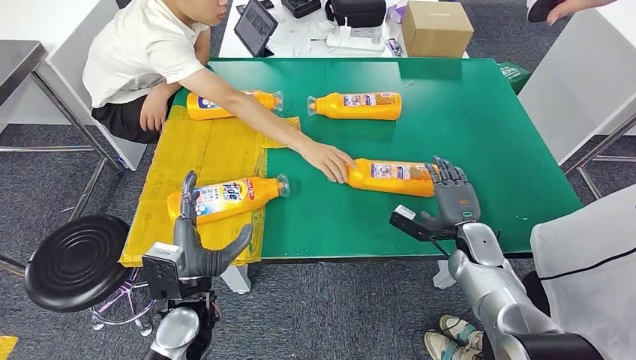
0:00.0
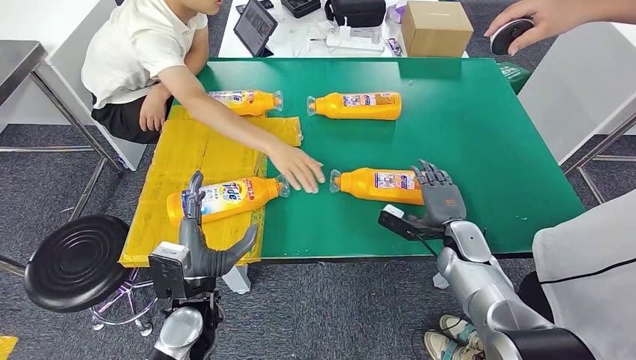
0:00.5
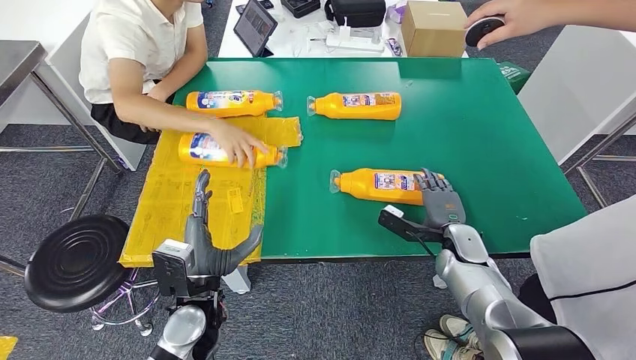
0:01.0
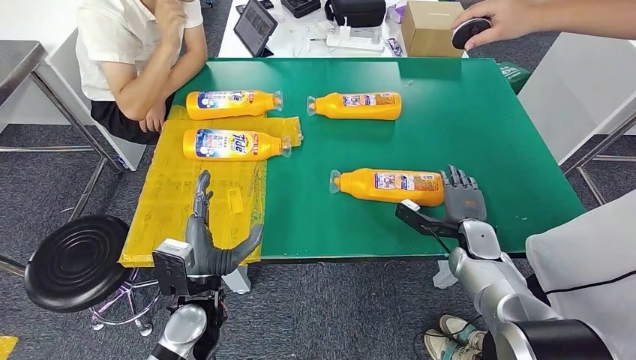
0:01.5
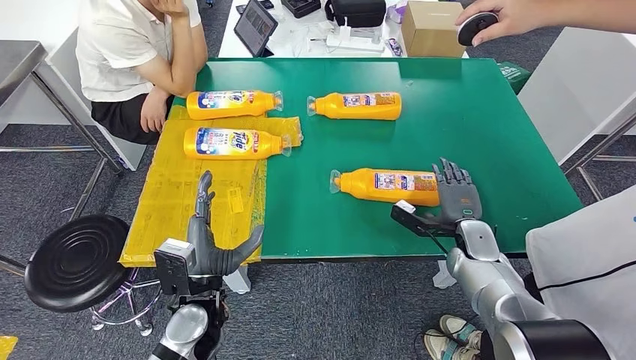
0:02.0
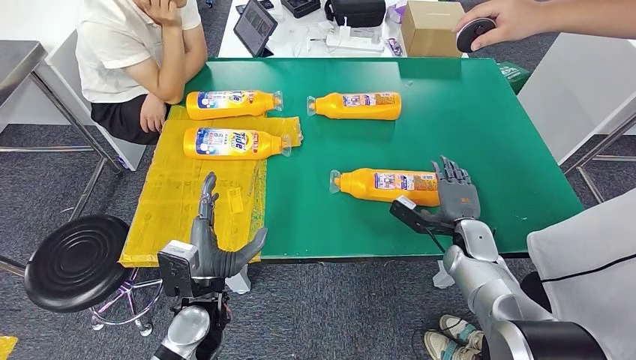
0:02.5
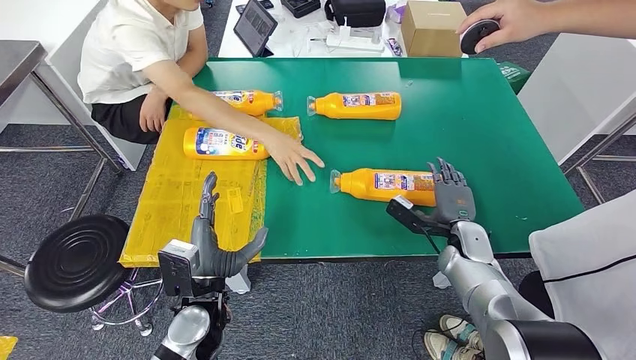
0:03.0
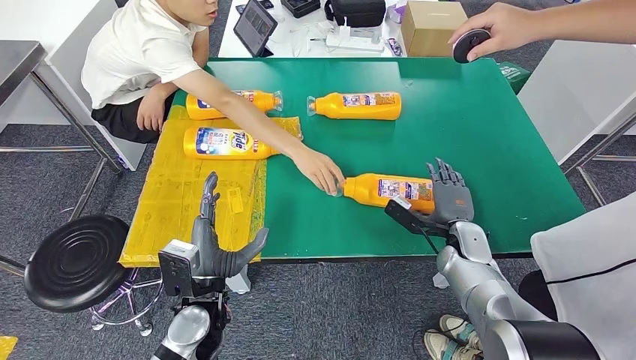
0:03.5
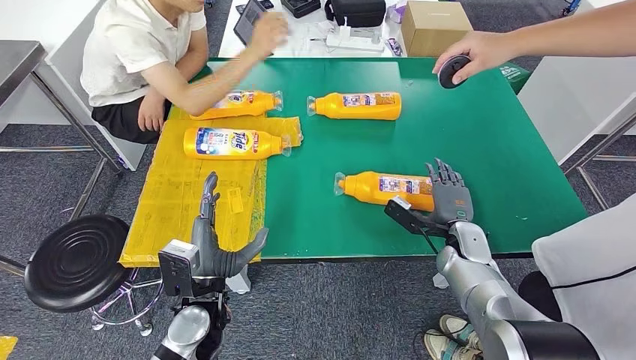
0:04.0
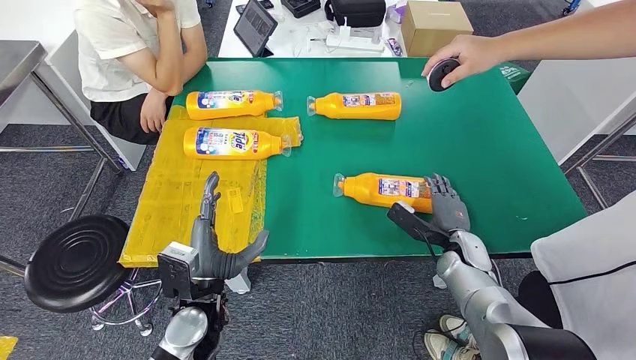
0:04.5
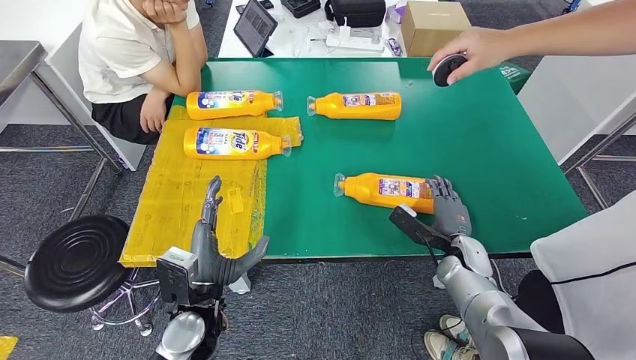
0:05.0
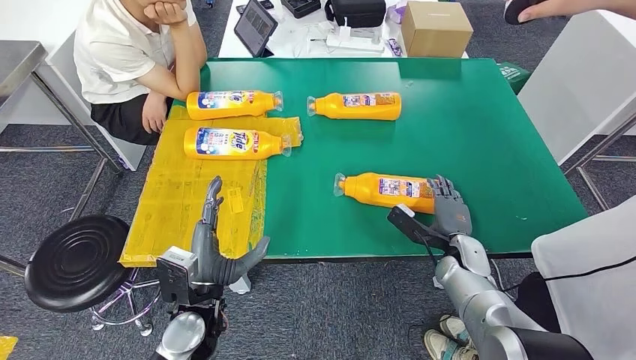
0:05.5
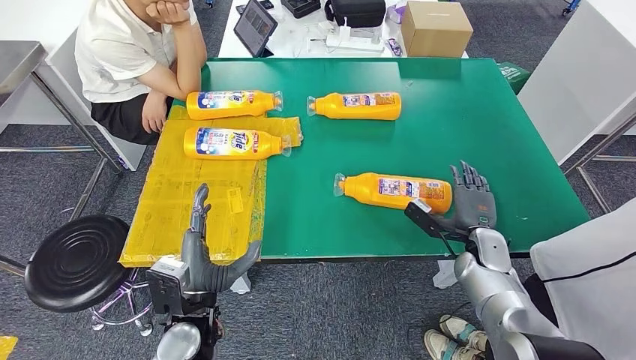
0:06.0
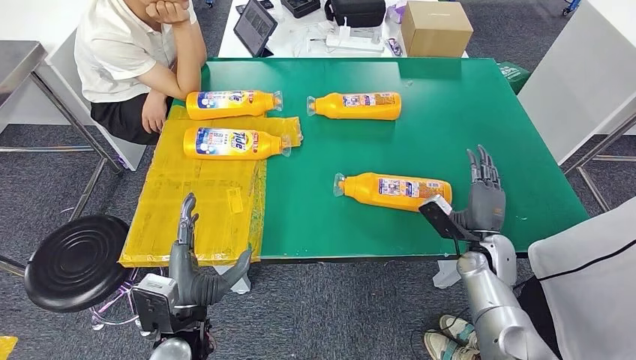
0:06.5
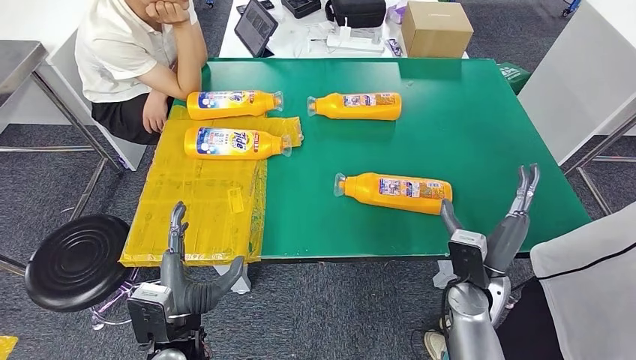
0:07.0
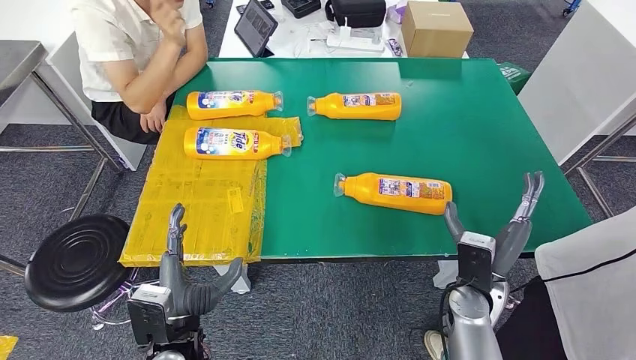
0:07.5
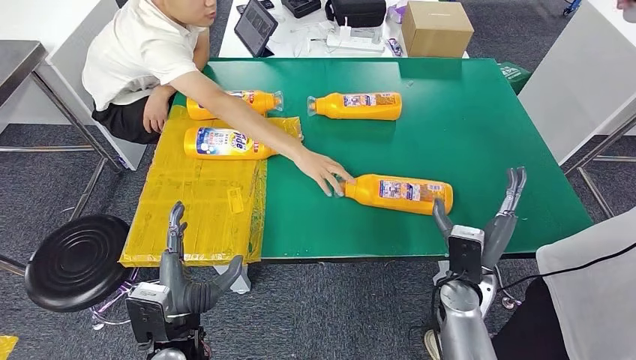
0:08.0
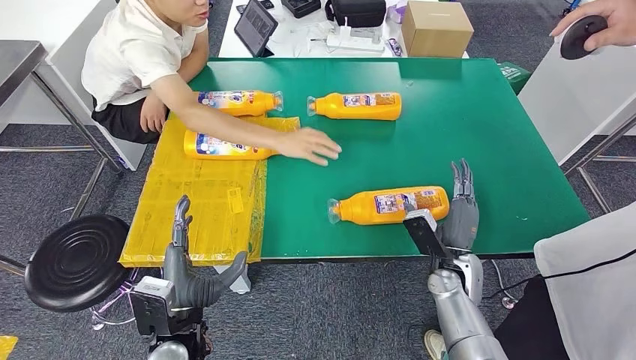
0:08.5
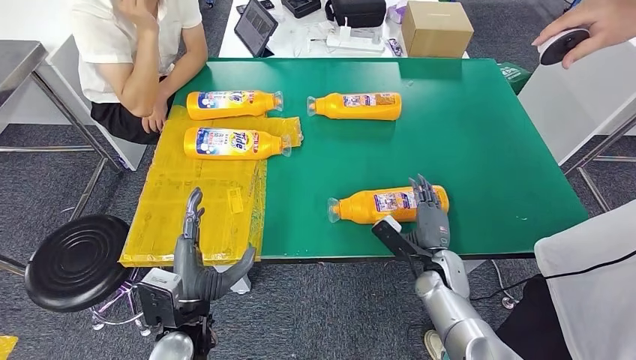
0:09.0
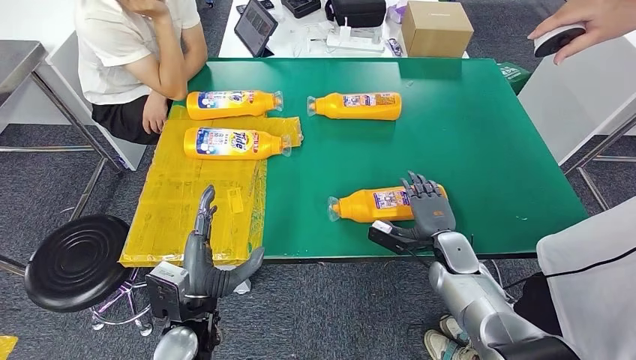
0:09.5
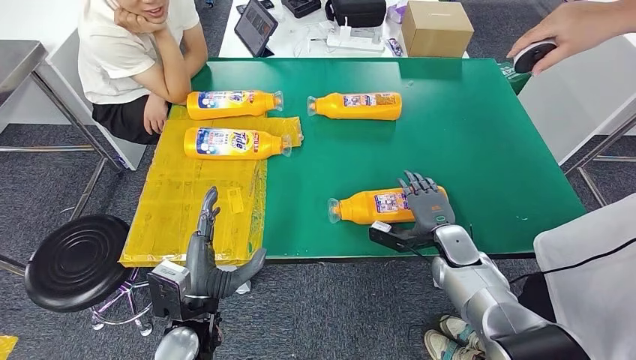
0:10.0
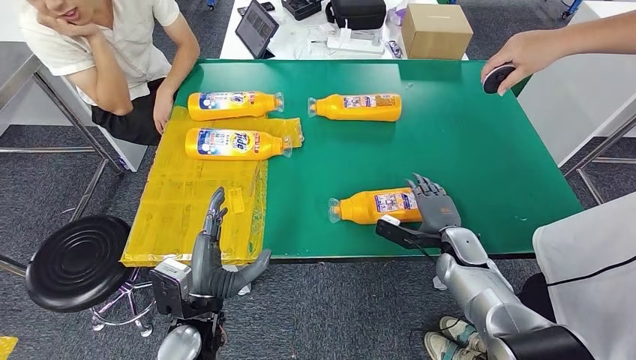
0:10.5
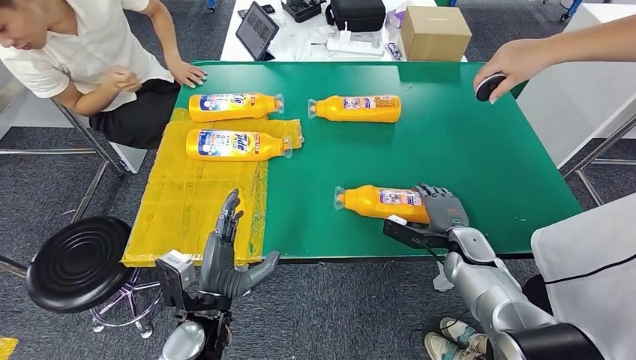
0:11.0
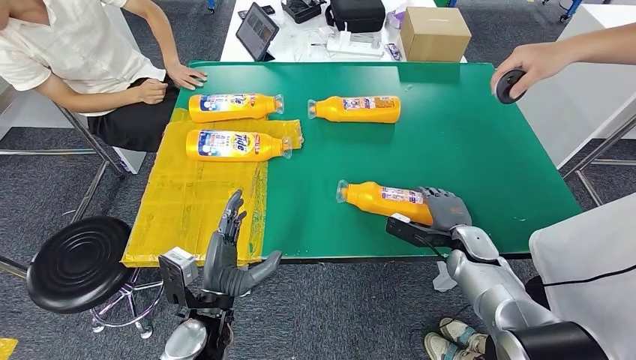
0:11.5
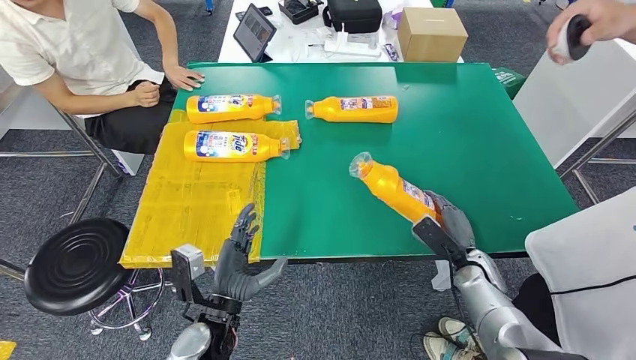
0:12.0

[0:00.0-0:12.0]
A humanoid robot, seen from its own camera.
0:00.0 to 0:04.0: The hands stay close to where they were, moving slightly.
0:04.0 to 0:06.0: The hands move only a little.
0:06.0 to 0:08.0: The right hand travels to the left and backward by some 10 cm.

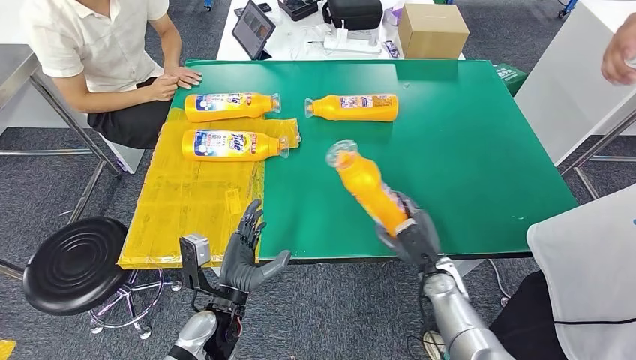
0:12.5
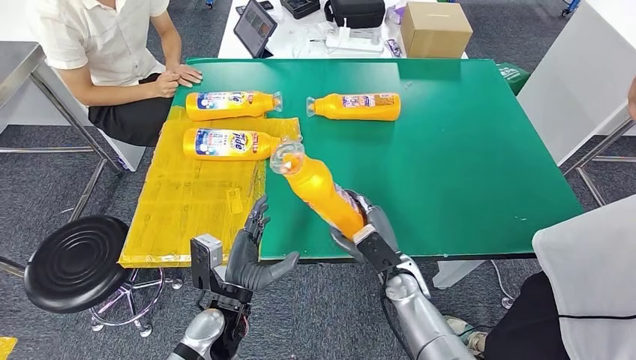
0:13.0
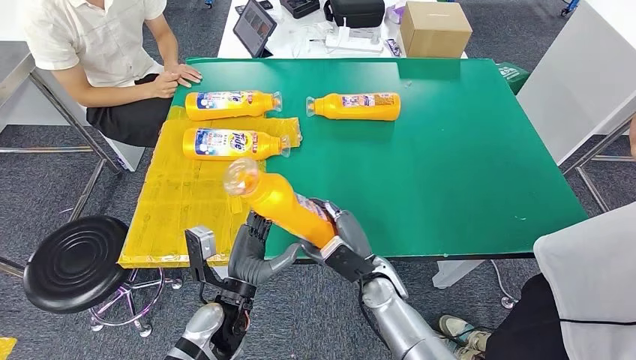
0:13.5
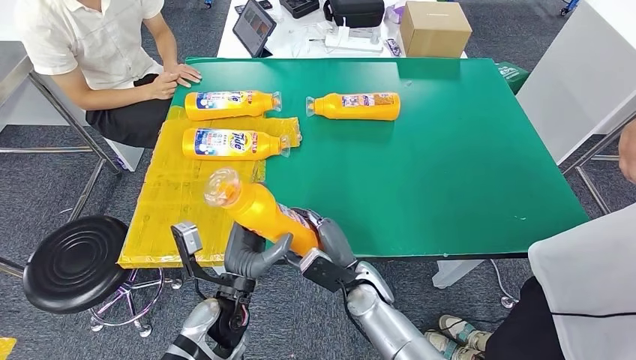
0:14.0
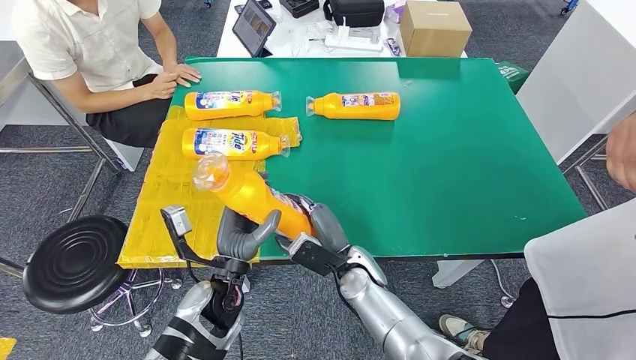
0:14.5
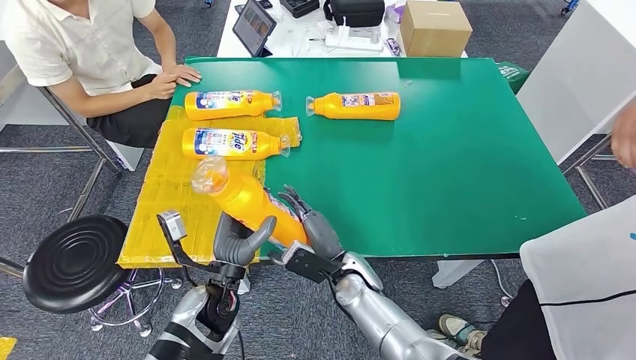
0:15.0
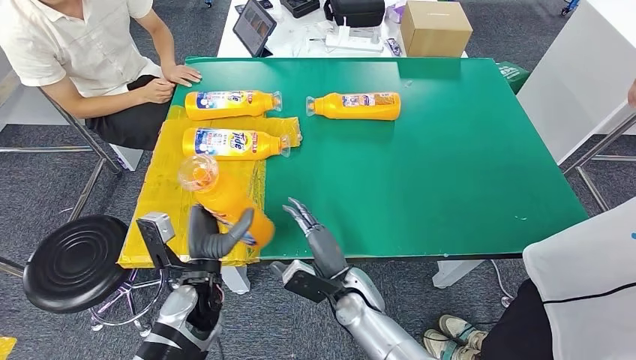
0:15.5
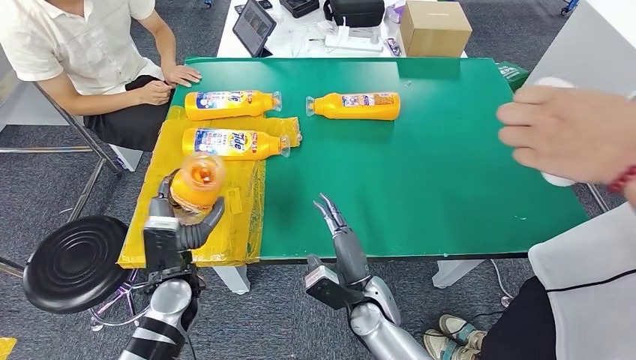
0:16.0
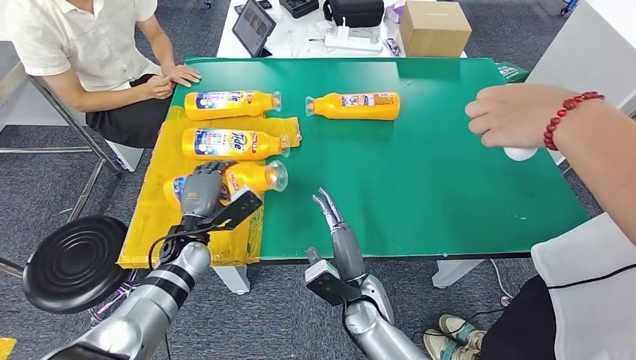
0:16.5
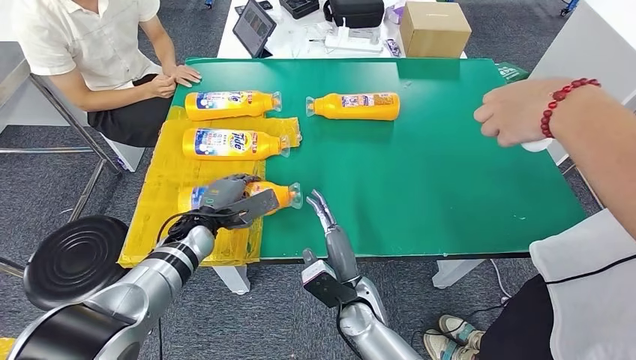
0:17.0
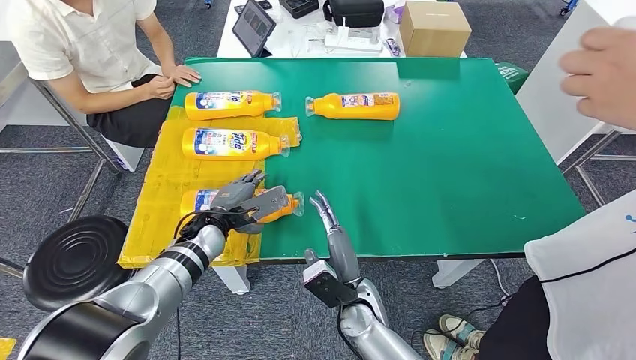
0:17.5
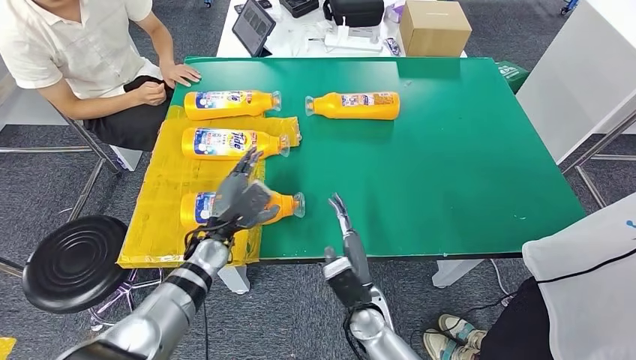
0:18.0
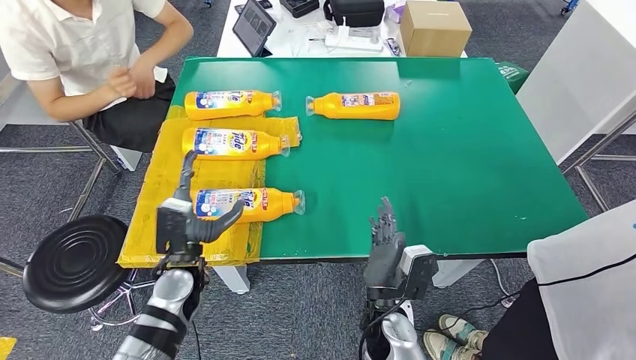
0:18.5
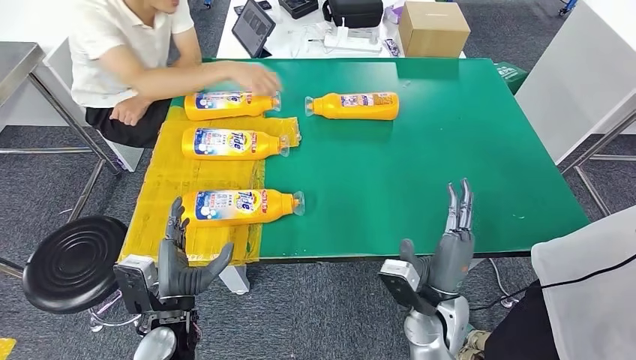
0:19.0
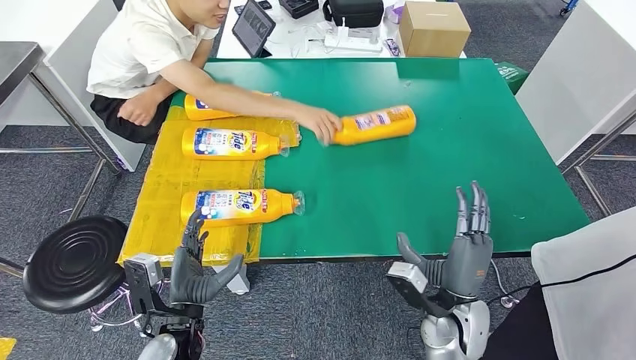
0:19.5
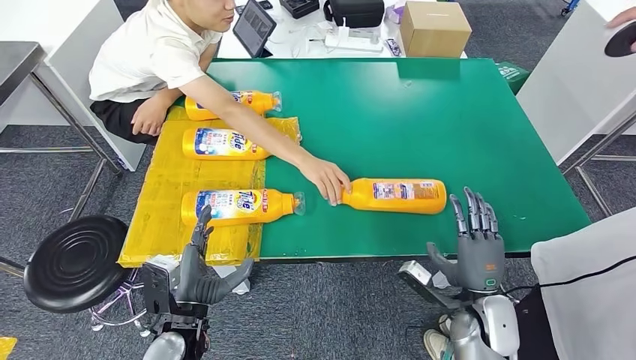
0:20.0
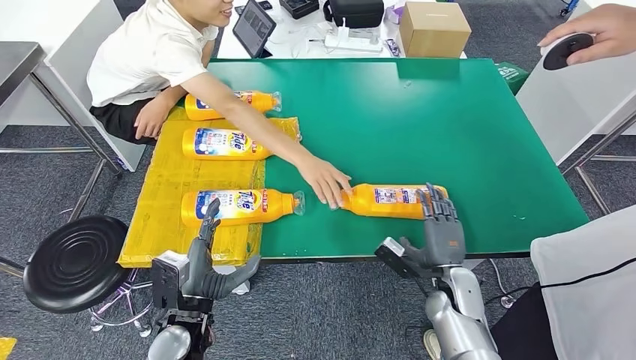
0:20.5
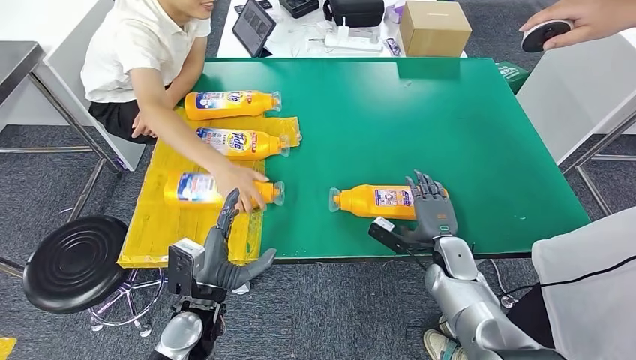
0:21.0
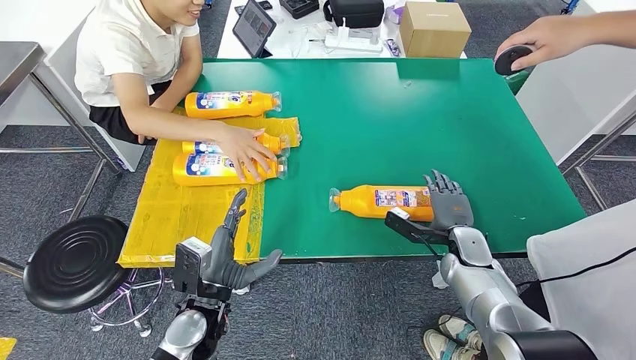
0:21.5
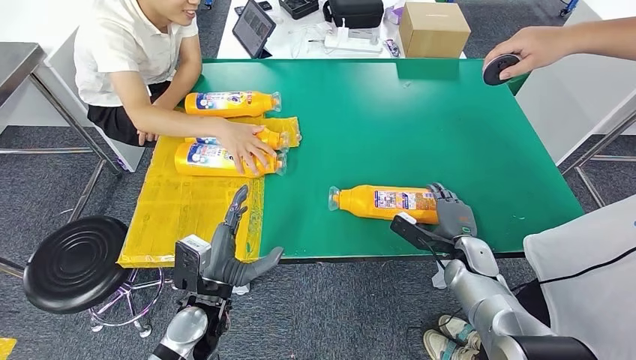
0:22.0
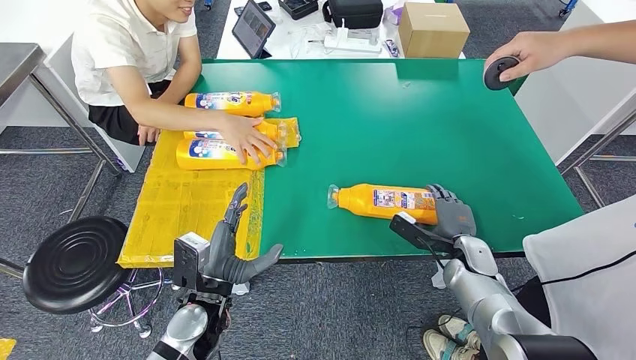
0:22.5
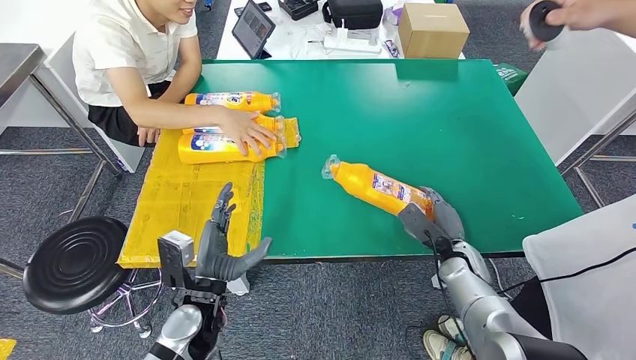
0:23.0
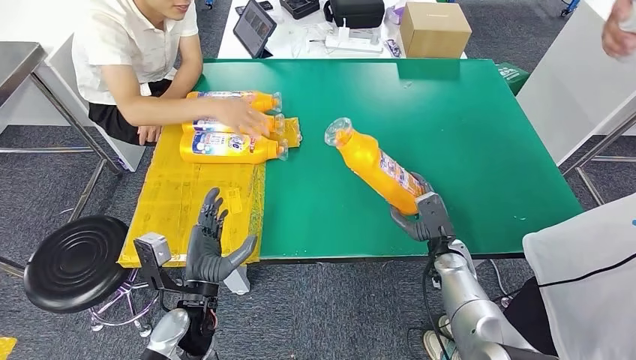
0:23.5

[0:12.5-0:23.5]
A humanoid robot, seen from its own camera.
Step, 0:13.0 to 0:18.0: Flip the fast-moving consumer goods bottle to the front side.
0:14.5 to 0:16.0: The right hand moves backward, some 5 cm. The left hand goes approximately 10 cm to the left.
0:16.0 to 0:18.0: The left hand travels forward by some 10 cm.
